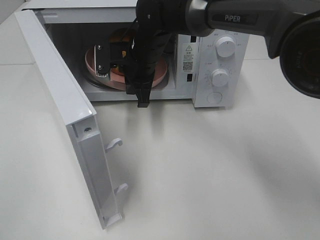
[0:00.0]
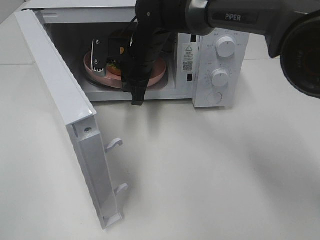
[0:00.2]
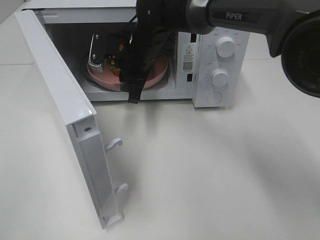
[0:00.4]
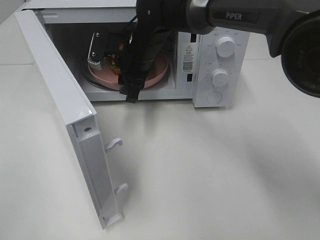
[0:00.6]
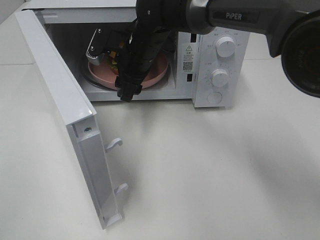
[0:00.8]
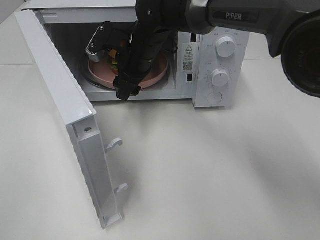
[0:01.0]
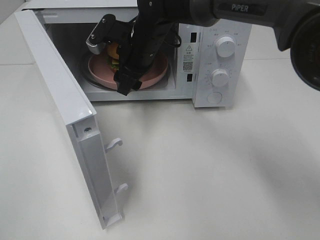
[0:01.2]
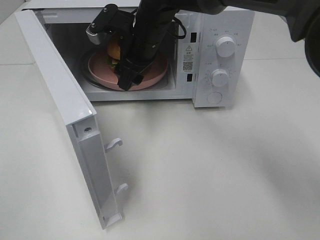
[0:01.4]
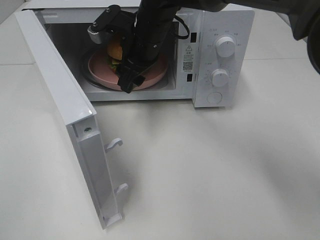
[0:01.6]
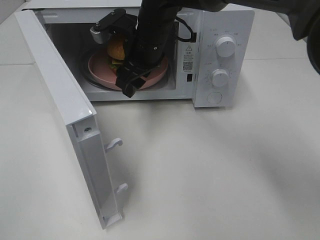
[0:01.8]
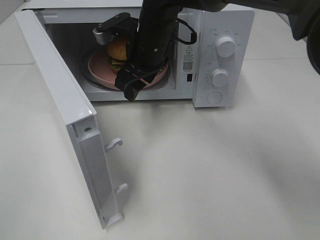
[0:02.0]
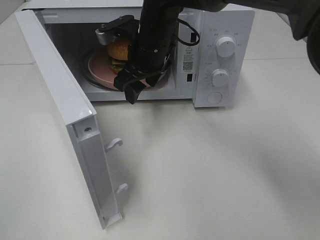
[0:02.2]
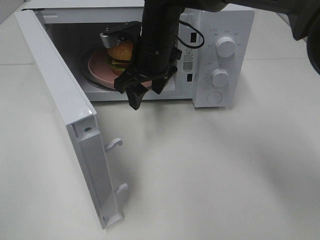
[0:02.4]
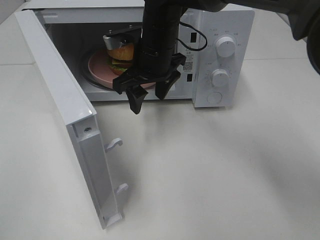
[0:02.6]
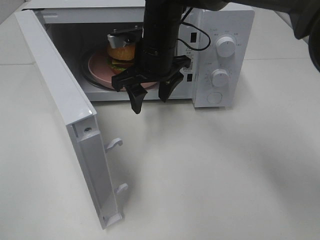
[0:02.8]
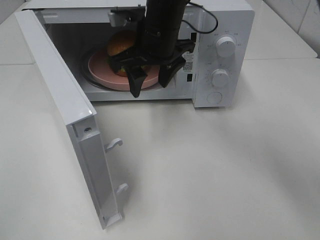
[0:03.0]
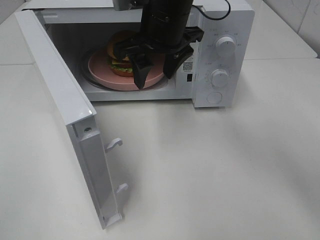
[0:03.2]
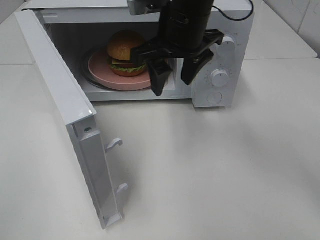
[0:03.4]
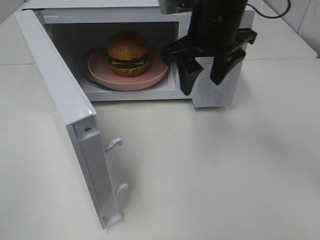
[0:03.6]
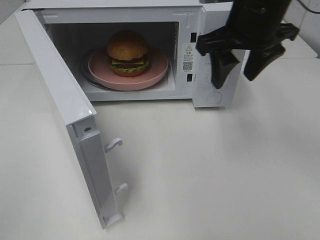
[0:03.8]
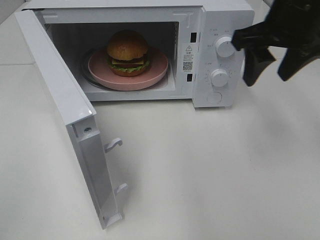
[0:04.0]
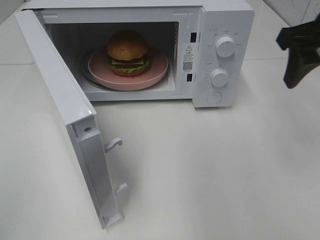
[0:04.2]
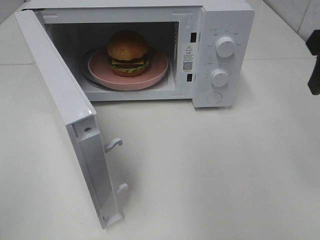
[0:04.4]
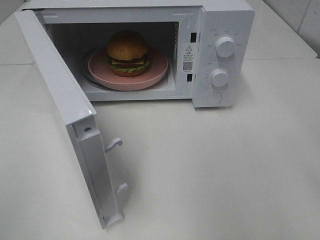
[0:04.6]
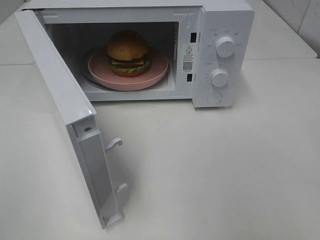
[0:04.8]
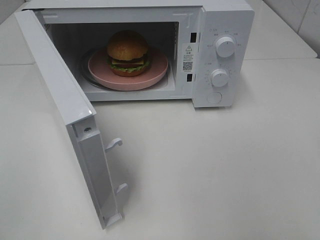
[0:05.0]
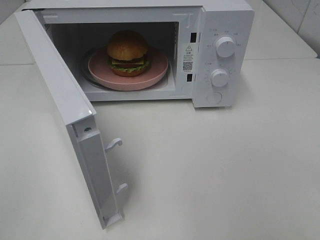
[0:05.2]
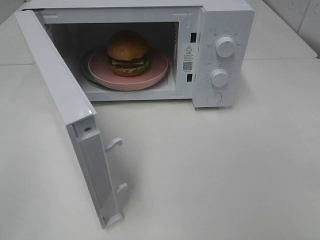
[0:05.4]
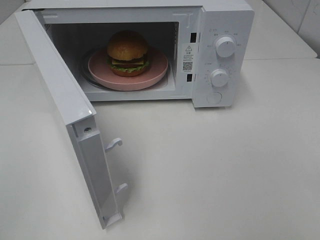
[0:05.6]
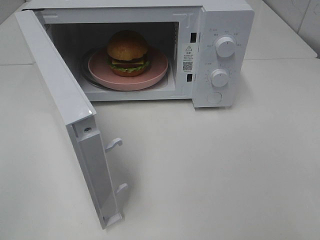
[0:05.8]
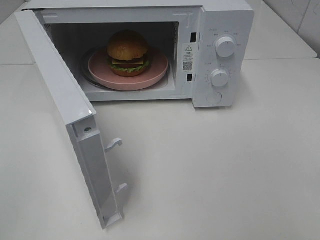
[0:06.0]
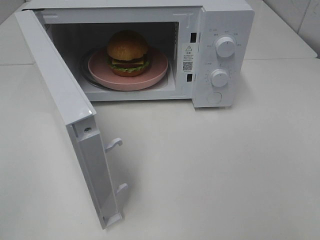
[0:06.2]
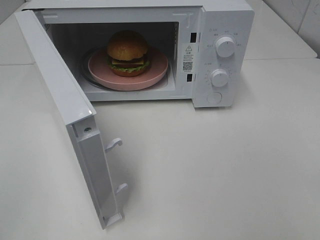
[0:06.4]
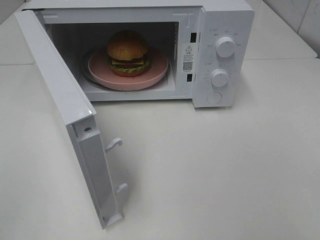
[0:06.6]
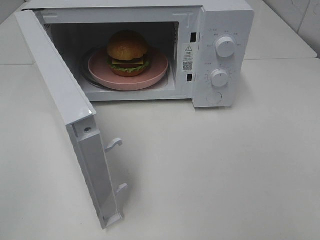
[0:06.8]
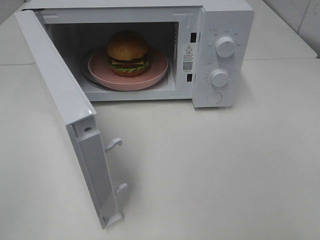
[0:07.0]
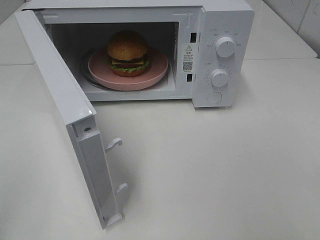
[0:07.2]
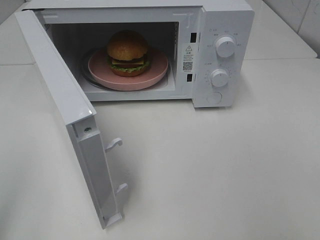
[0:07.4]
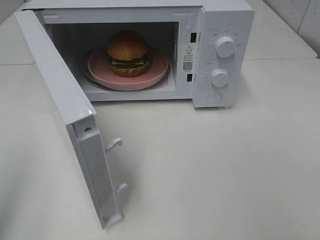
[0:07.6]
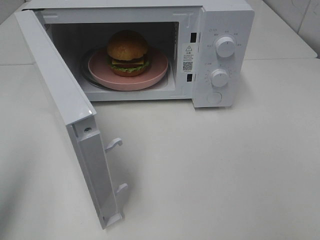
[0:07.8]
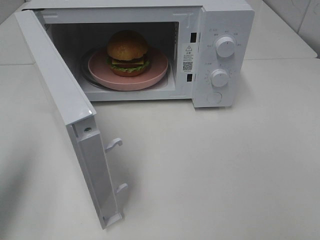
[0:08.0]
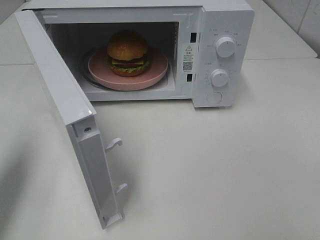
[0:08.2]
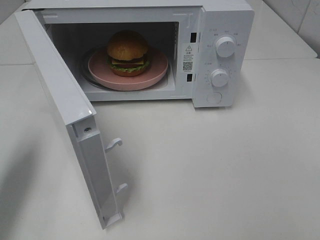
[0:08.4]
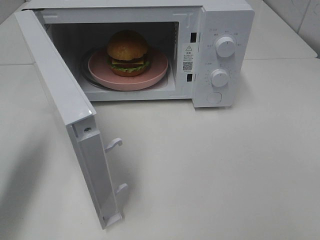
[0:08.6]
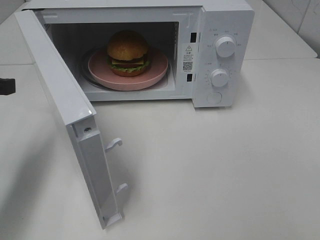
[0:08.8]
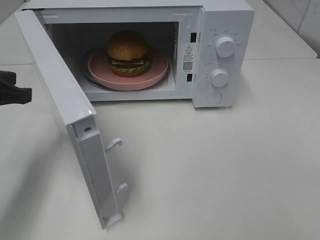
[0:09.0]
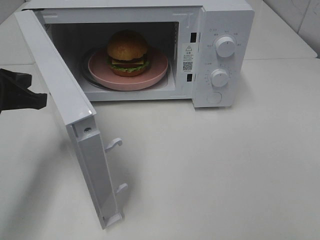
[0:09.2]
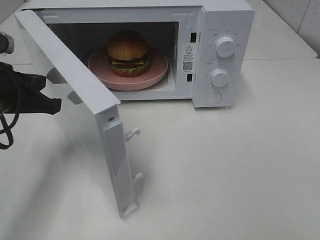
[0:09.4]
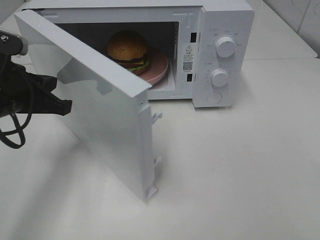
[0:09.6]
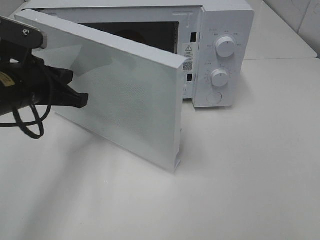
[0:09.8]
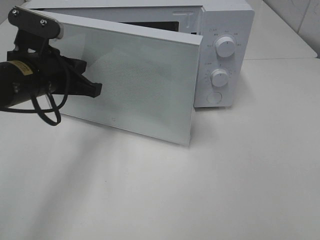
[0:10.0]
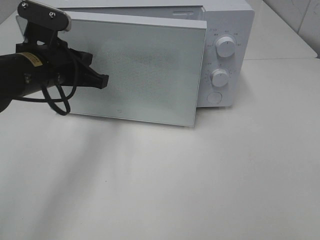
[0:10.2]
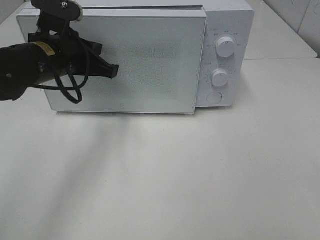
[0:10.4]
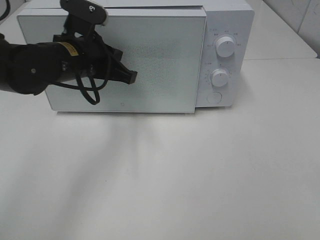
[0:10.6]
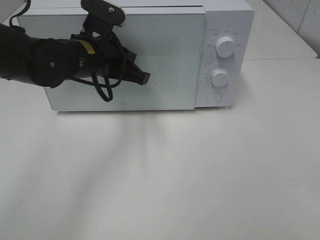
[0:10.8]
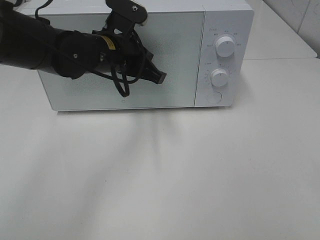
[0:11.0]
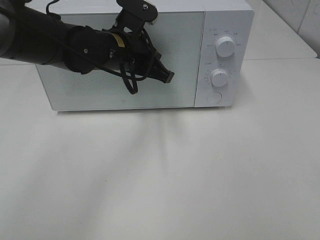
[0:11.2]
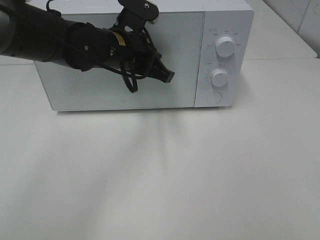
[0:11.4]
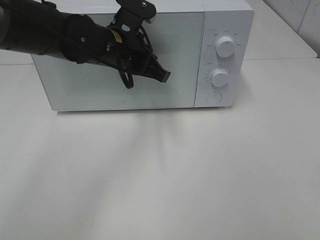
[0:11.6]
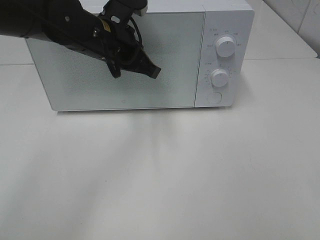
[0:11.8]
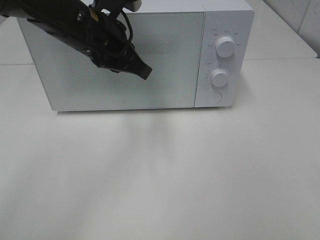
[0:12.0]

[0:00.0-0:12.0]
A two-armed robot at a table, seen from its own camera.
Task of the whole recording: Heat the burger.
Step, 0:00.6 to 0:11.6: Left hand: close the microwave door.
0:00.0 to 0:01.6: The right gripper opens its fingers.
0:01.6 to 0:03.0: The right gripper changes place by some 5 cm.
0:03.0 to 0:04.4: The right gripper is displaced to the right and backward by roughly 30 cm.
0:04.4 to 0:06.0: The right gripper shifts about 25 cm backward.
0:07.6 to 0:09.0: The left gripper moves forward and downward, some 25 cm.
0:09.0 to 0:10.4: The left gripper heads to the right and forward, covering roughly 15 cm.
0:10.4 to 0:12.0: The left gripper travels to the right by approximately 5 cm.

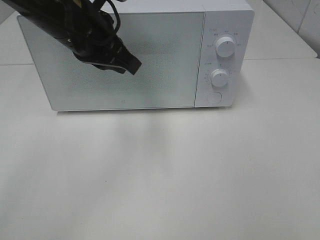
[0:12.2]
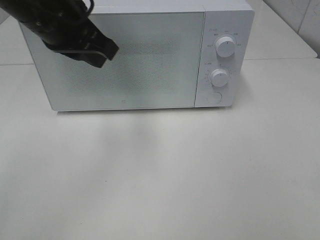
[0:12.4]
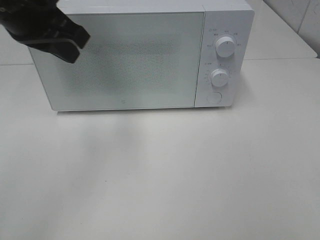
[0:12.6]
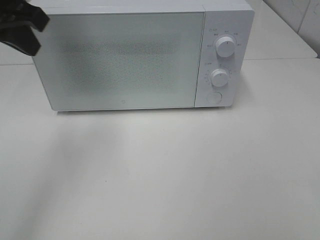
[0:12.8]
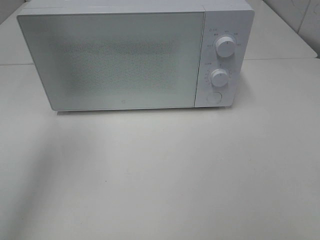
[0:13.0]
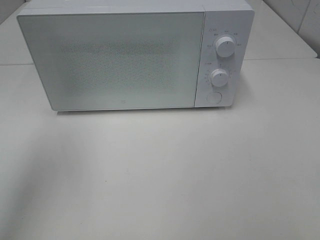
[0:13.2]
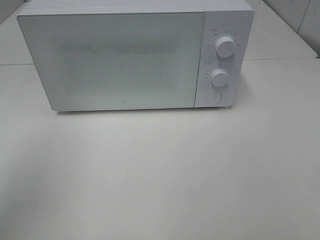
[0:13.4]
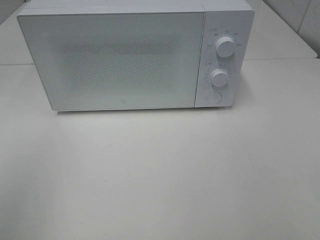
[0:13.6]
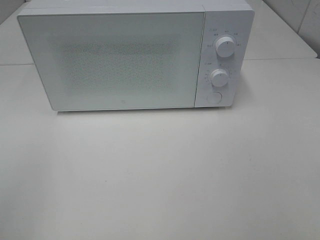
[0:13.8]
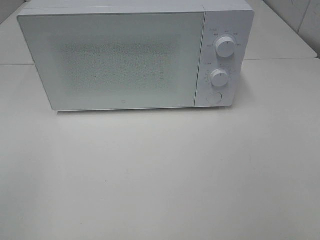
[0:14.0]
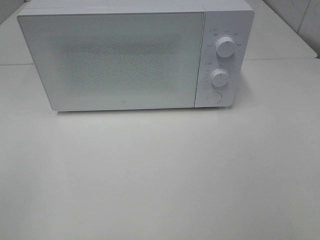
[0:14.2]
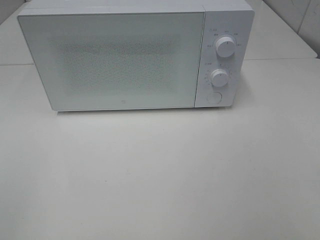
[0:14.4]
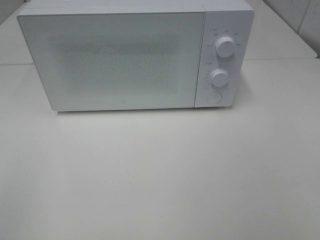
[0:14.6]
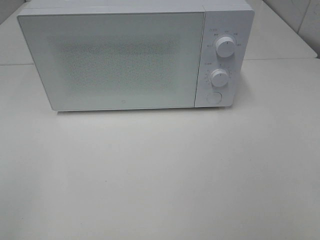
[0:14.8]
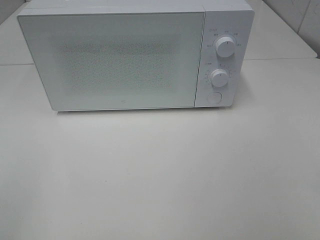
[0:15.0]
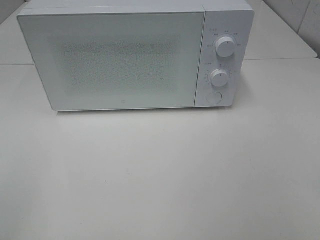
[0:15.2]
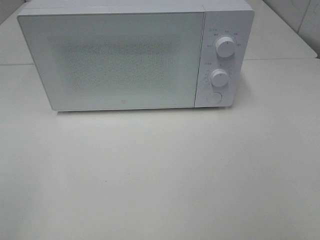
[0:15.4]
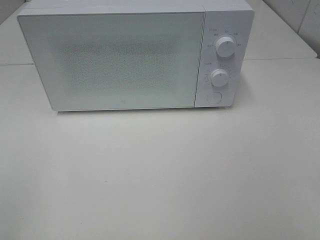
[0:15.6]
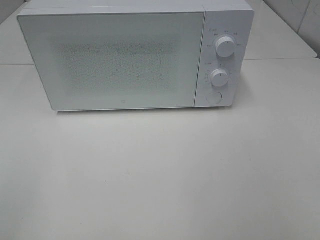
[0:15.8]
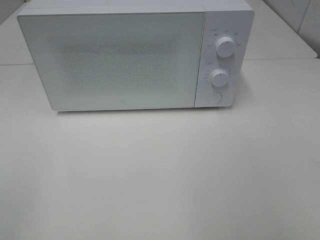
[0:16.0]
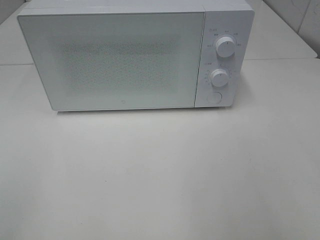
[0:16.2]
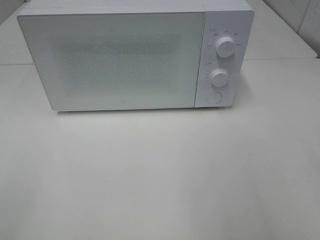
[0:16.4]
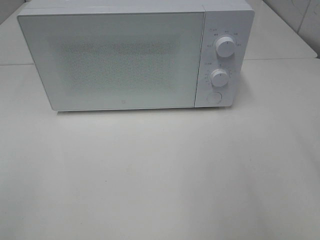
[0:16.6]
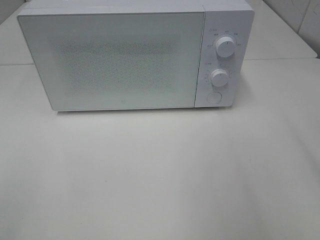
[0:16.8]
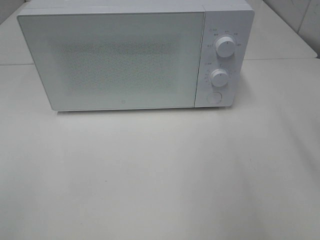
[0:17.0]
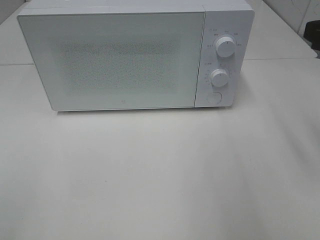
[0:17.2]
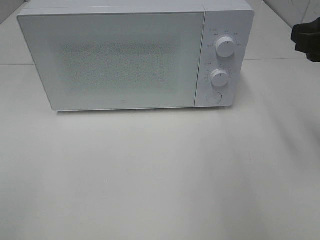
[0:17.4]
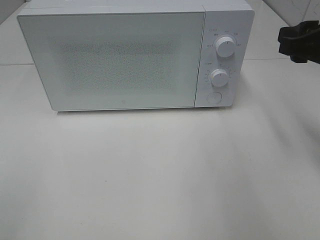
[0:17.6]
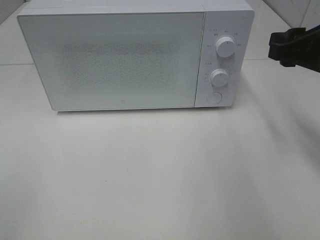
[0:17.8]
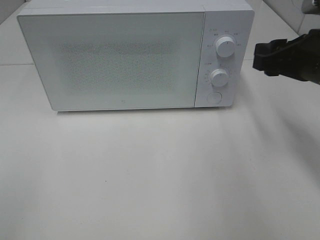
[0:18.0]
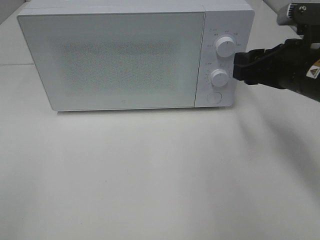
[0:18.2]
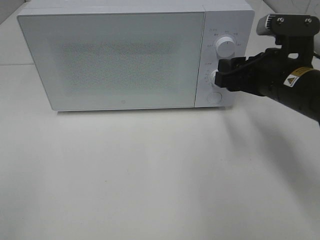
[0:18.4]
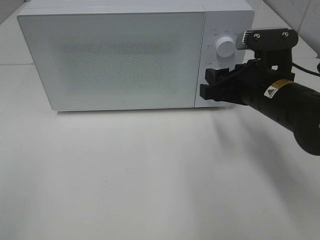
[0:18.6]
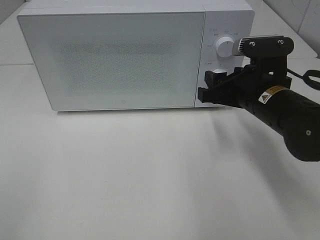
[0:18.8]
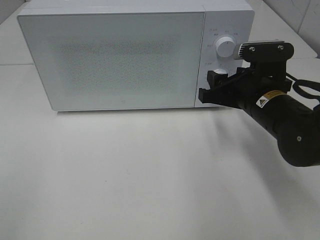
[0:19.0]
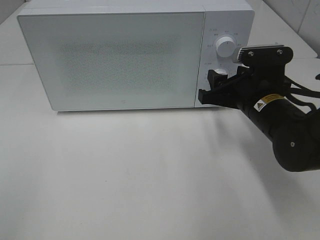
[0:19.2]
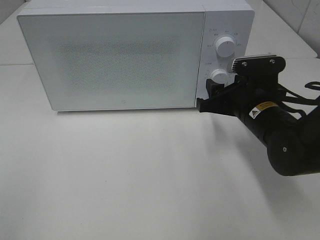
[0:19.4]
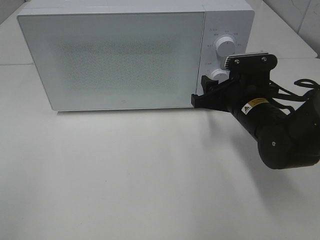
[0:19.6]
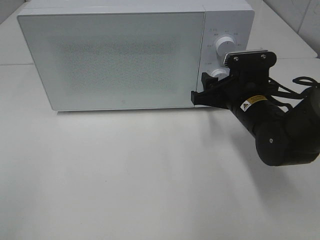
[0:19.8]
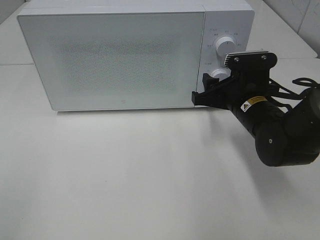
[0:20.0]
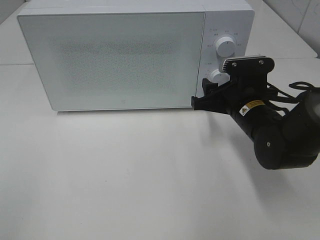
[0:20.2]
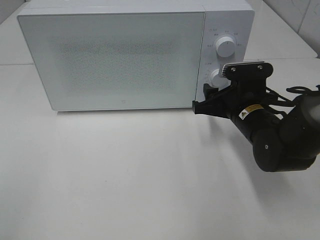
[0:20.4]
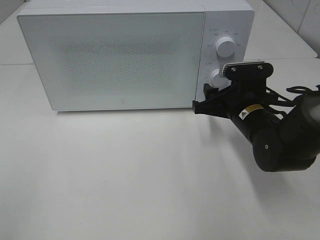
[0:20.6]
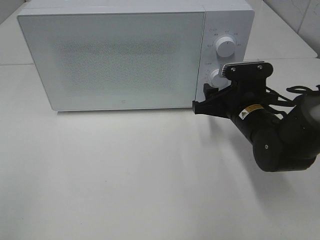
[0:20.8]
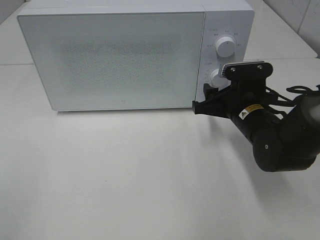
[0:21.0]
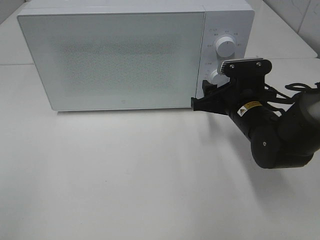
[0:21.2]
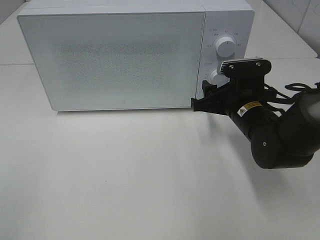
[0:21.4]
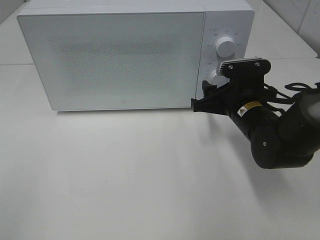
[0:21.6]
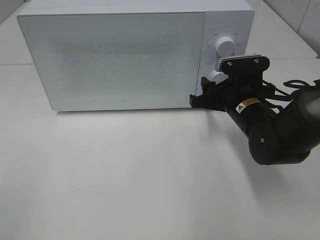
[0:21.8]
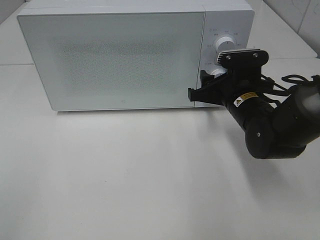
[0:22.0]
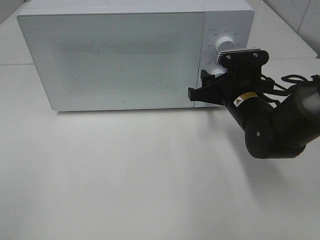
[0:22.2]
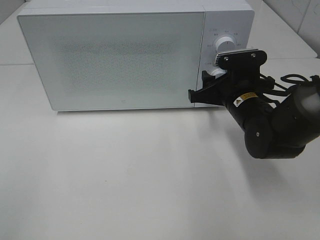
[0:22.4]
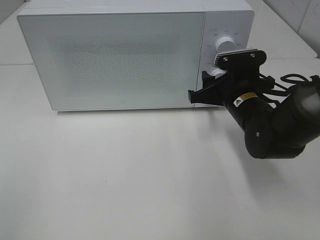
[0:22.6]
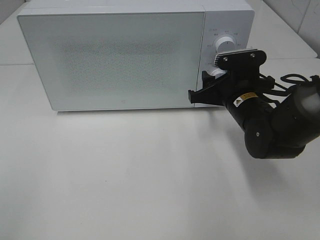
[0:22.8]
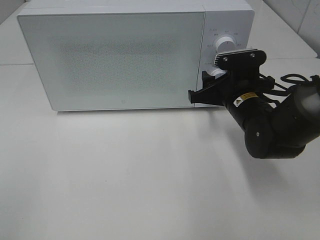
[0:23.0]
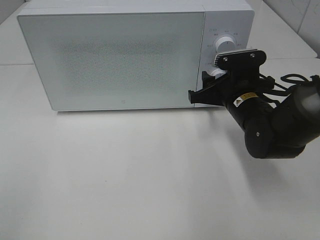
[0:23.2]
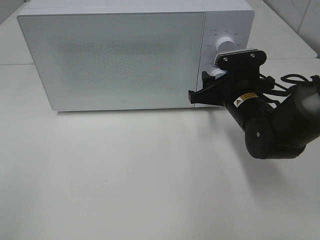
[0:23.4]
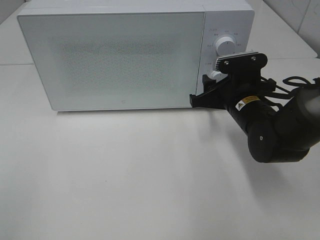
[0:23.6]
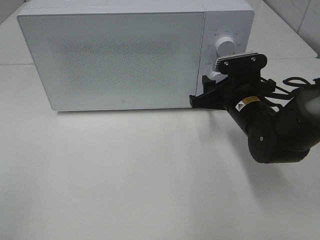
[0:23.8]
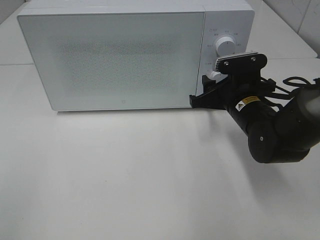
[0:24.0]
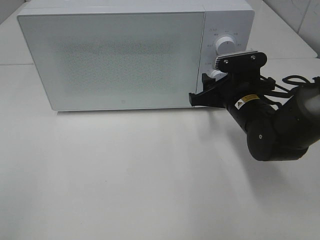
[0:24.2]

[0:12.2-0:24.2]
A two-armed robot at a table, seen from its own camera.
Task of the whole recording: Heat the burger.
0:12.2 to 0:13.8: The left gripper moves backward and to the left, about 35 cm.
0:16.6 to 0:18.2: The right gripper heads forward, downward and to the left, covering some 20 cm.
0:18.2 to 0:19.8: The right gripper moves downward, some 10 cm.
0:19.8 to 0:22.6: There are only small adjustments of the grippers.
0:22.6 to 0:24.2: Both grippers stay put.
